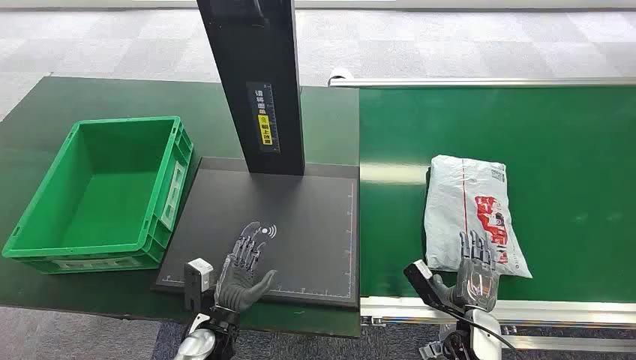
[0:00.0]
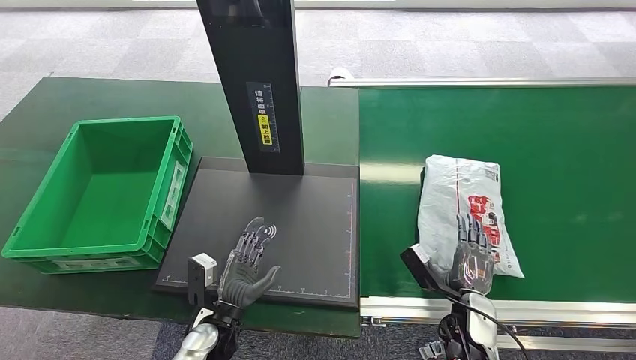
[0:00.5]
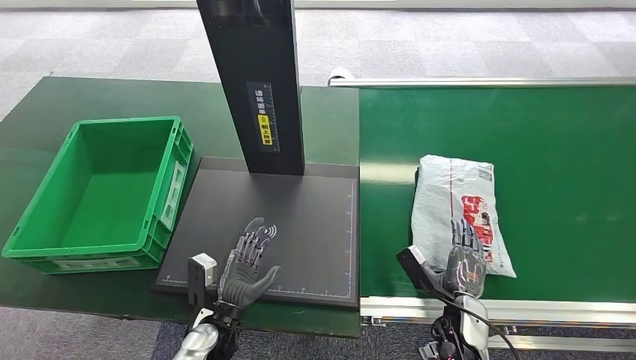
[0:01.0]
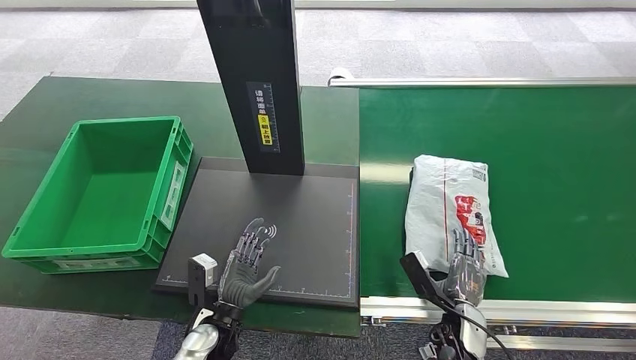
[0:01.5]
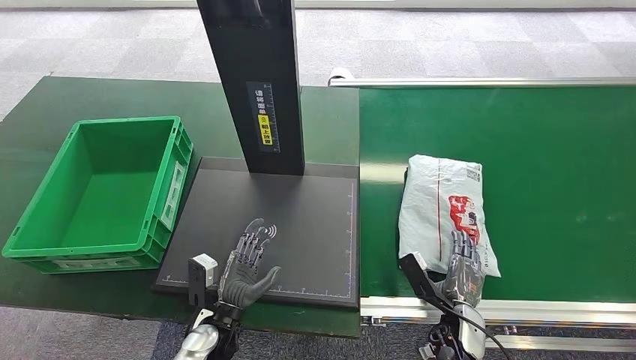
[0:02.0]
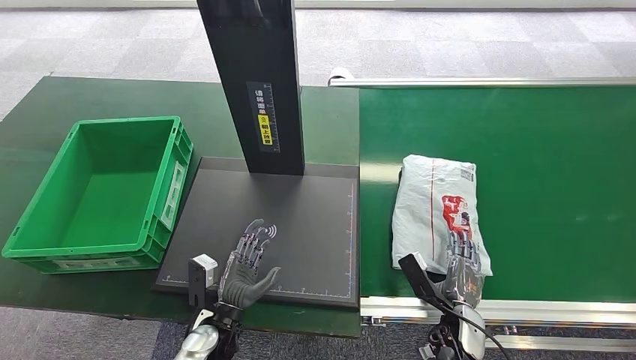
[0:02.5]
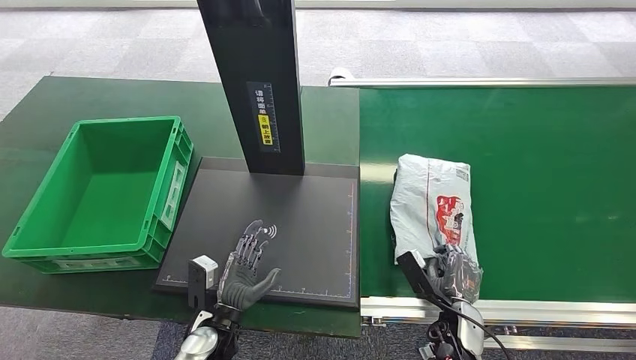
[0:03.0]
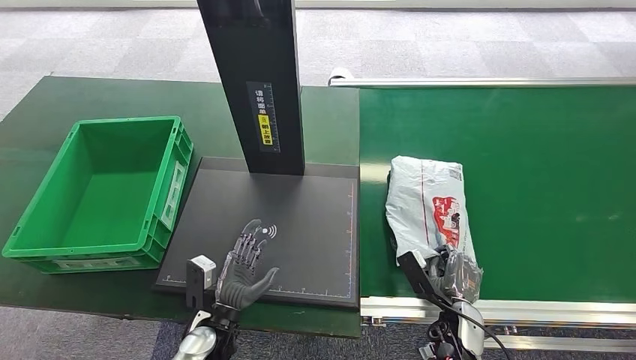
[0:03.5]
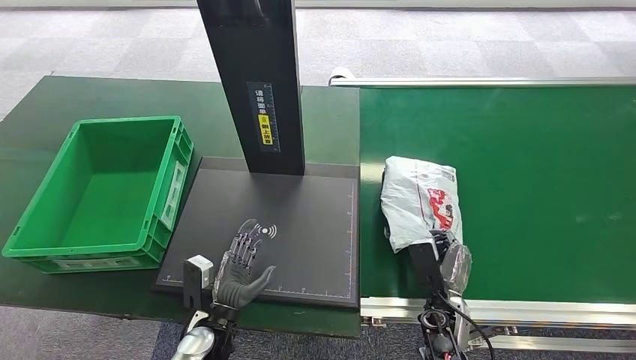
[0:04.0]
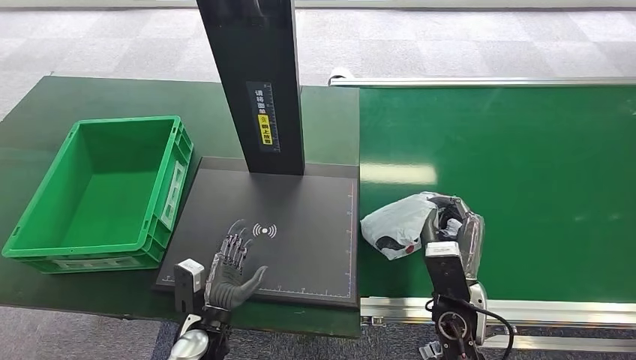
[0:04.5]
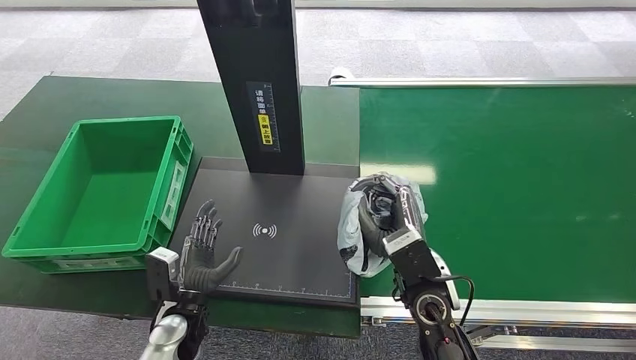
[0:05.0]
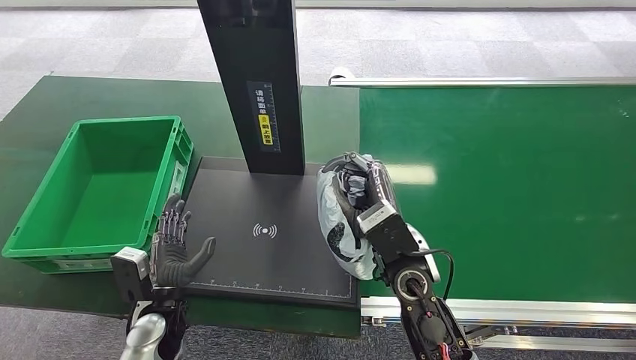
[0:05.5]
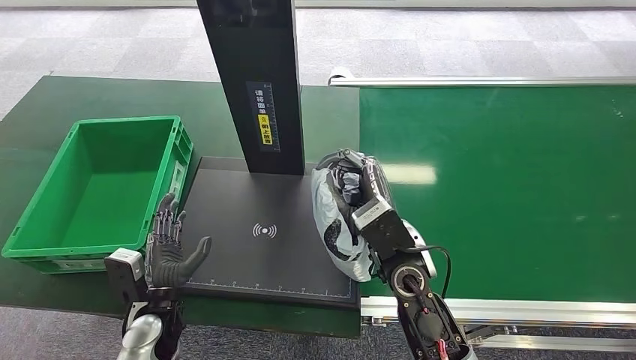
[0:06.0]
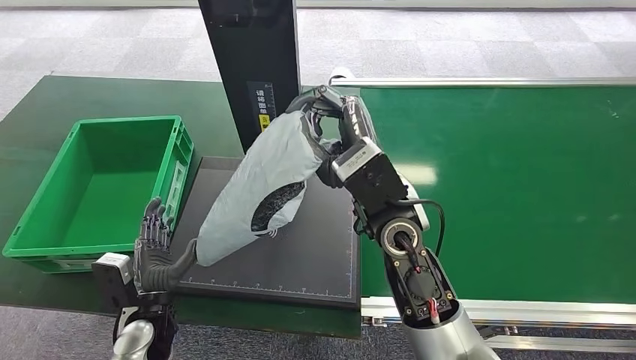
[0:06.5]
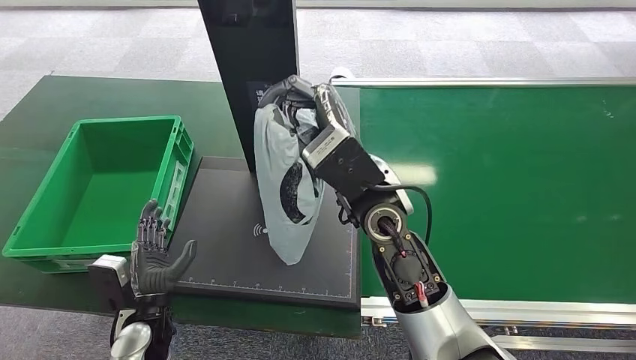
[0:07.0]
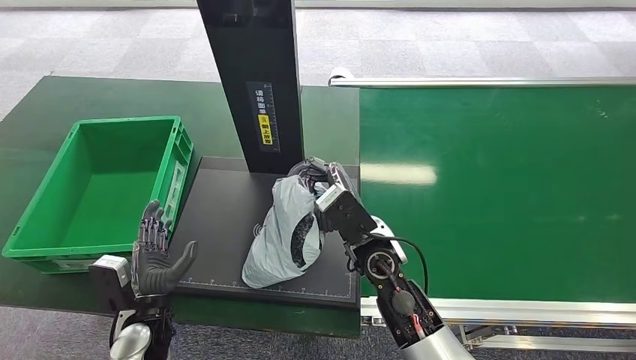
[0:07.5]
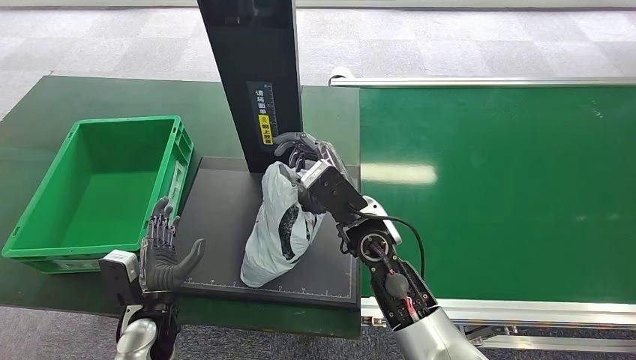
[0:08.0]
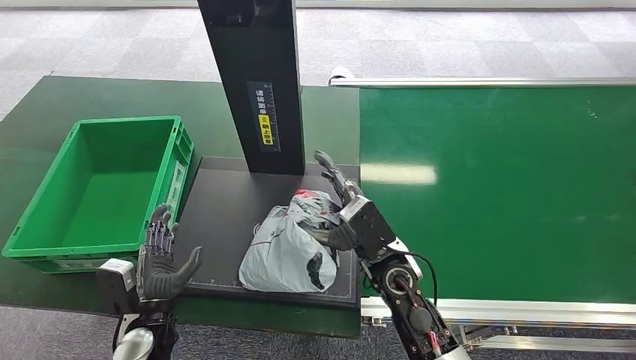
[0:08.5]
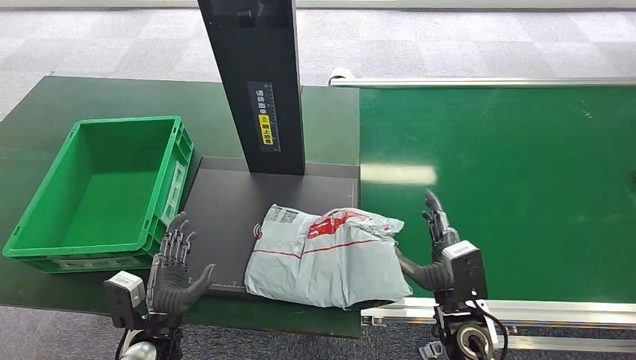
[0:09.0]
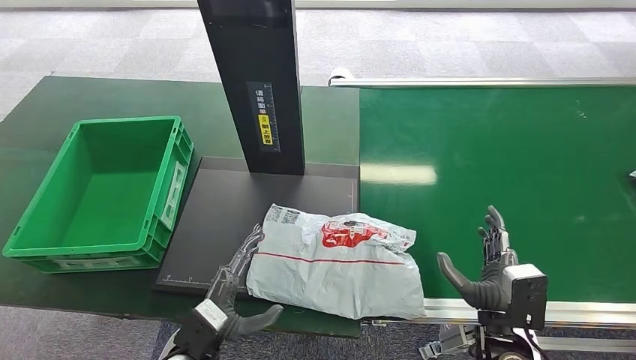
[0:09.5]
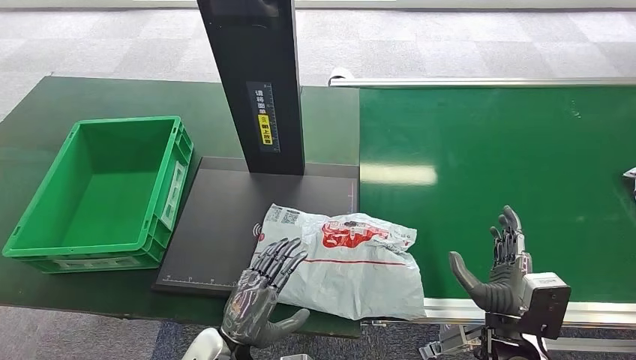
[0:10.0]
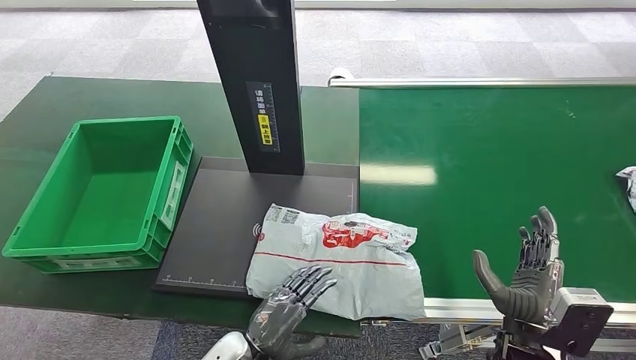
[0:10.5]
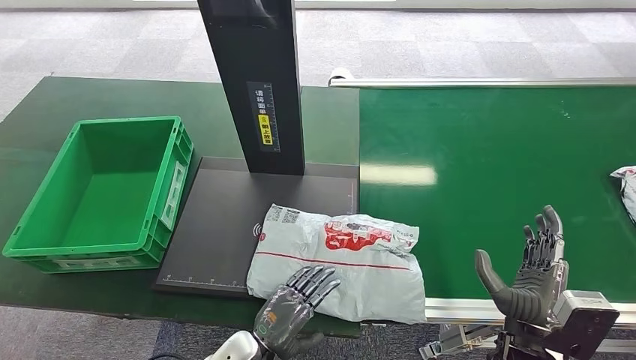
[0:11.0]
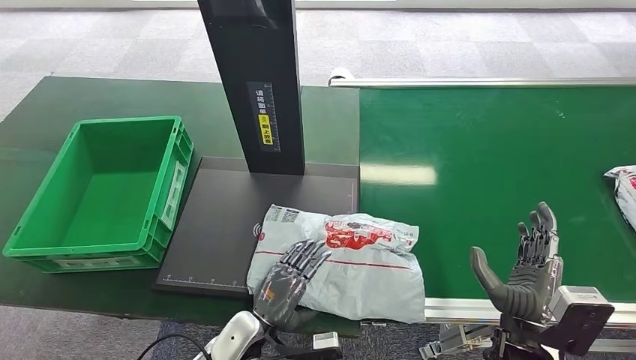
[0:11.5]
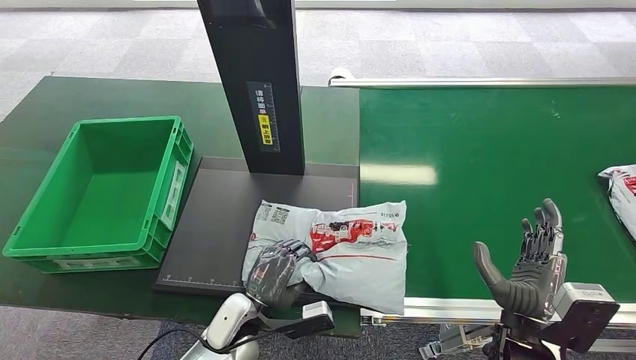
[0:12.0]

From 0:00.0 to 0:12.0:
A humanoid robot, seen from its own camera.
Step, from 0:00.0 to 0:05.5: Pick up the package from the conveyor belt.
Step, from 0:06.0 to 0:09.0: Place the package onto the inbound machine.
From 0:04.0 to 0:06.0: The right hand is displaced upward and to the left by about 25 cm. Meanwhile the left hand moves to the left, roughly 10 cm.
From 0:06.0 to 0:08.0: The right hand goes upward and returns, roughly 10 cm each way.
From 0:08.0 to 0:10.0: The left hand goes approximately 15 cm to the right and backward. The right hand goes about 25 cm to the right, backward and downward.
From 0:10.0 to 0:12.0: The left hand moves forward, approximately 5 cm.

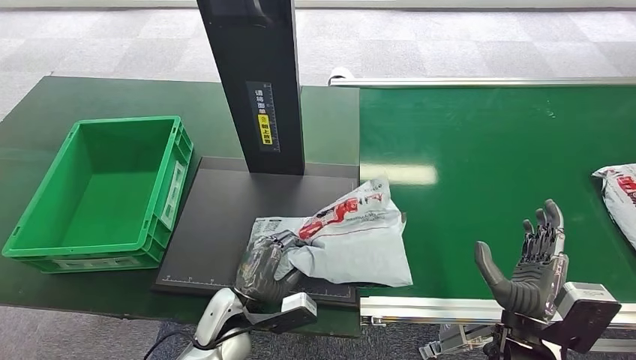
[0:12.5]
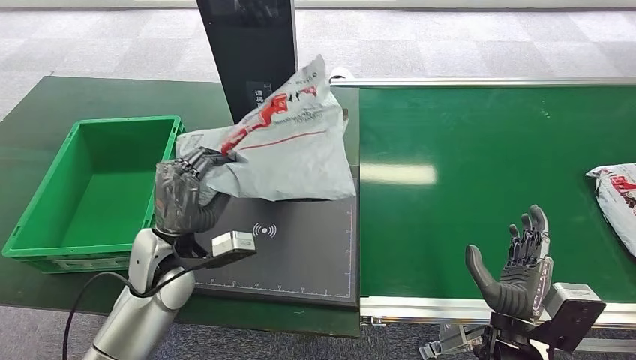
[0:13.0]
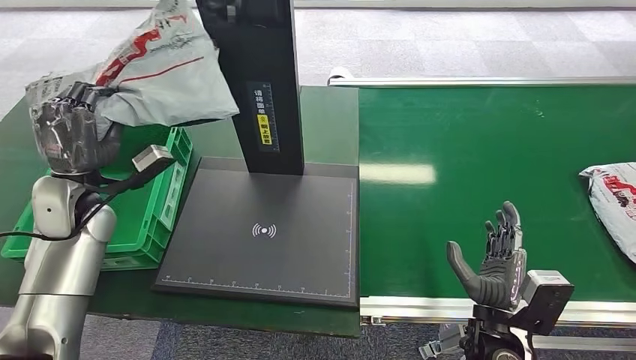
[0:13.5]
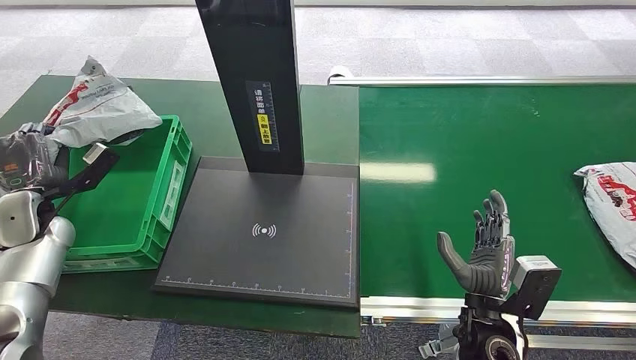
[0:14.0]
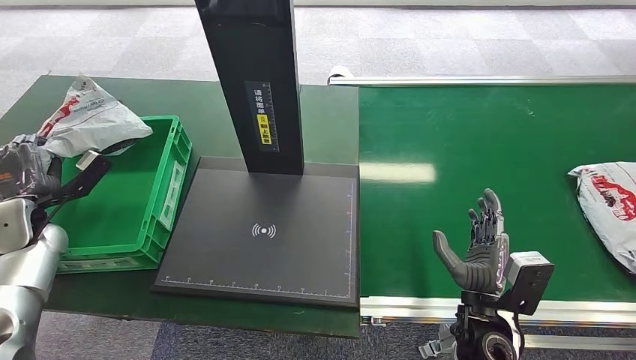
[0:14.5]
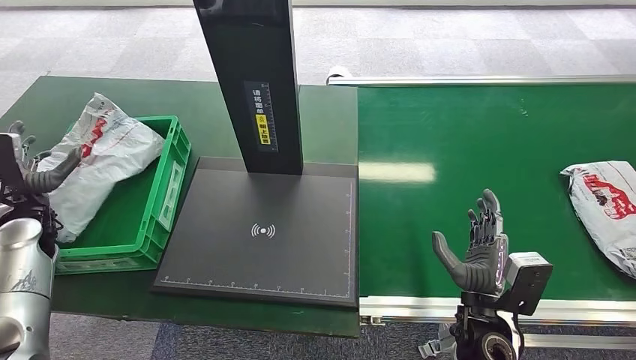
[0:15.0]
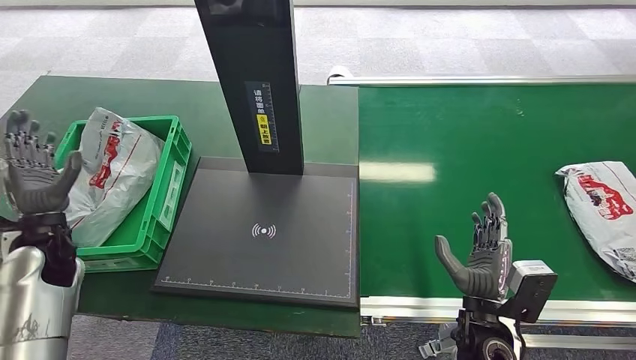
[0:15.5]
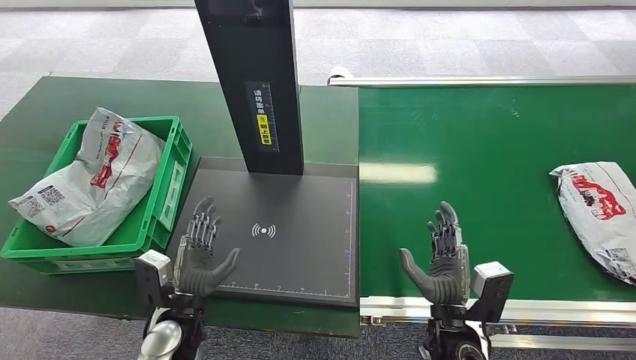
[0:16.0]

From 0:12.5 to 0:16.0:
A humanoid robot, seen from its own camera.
Step, from 0:13.5 to 0:16.0: Place the package into the parcel locker.
